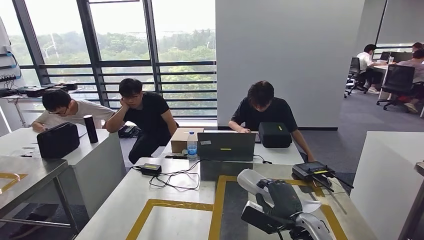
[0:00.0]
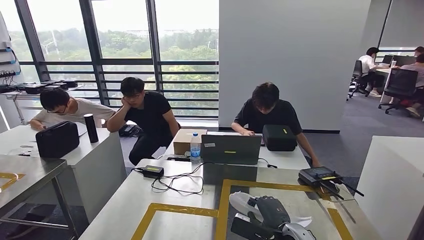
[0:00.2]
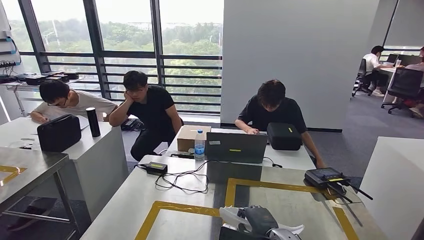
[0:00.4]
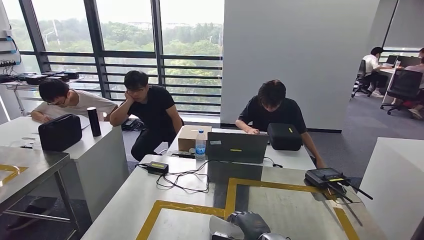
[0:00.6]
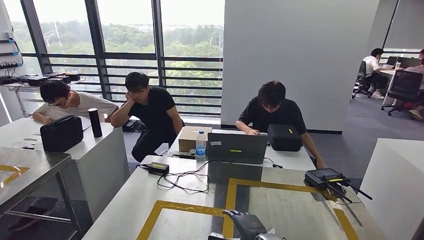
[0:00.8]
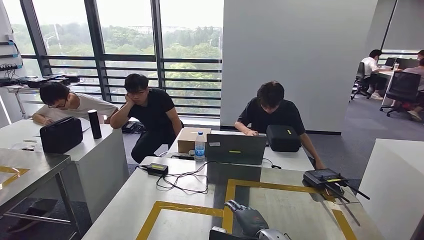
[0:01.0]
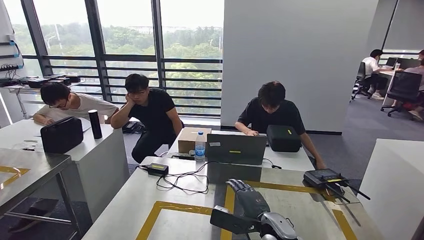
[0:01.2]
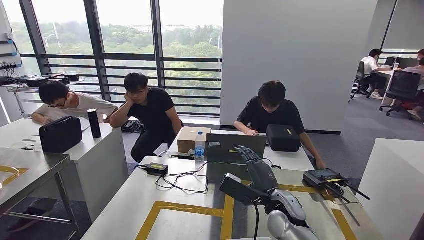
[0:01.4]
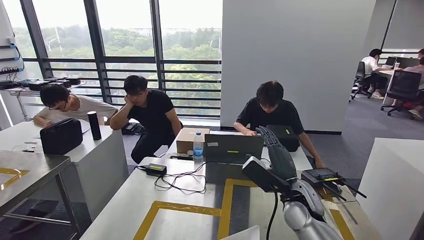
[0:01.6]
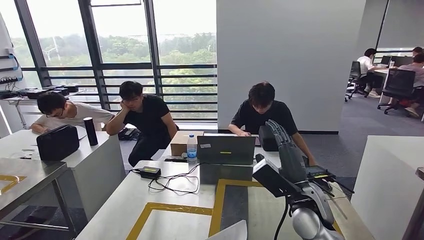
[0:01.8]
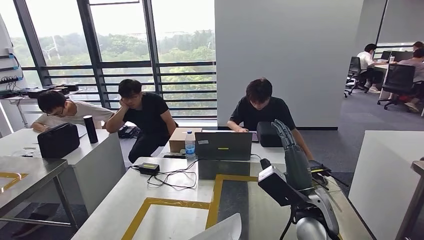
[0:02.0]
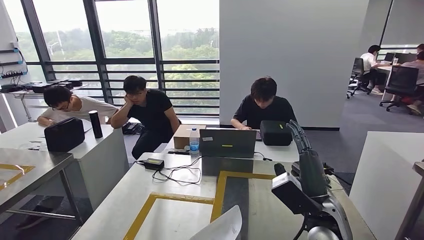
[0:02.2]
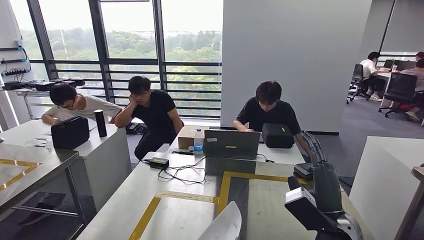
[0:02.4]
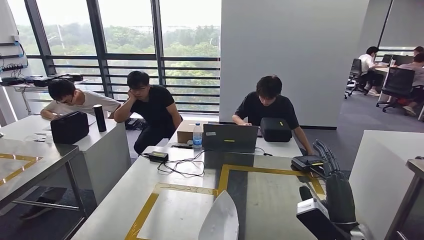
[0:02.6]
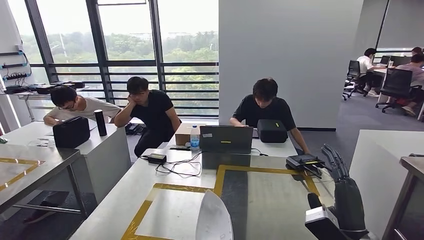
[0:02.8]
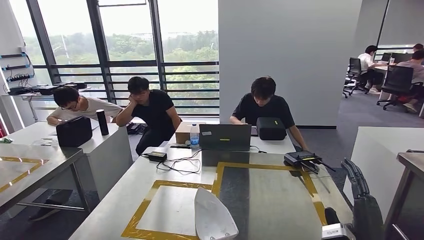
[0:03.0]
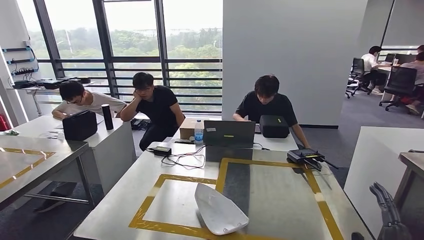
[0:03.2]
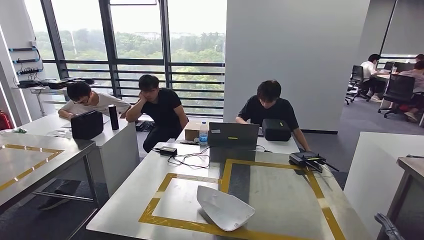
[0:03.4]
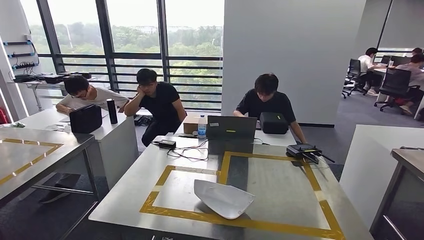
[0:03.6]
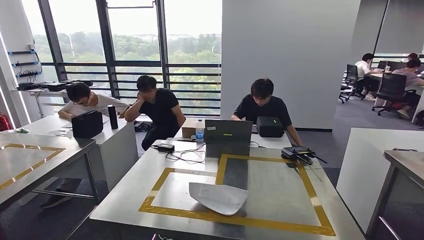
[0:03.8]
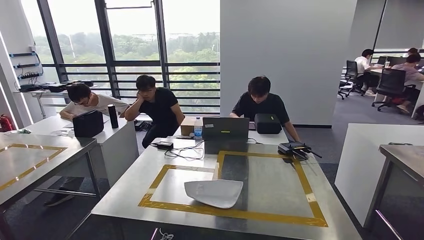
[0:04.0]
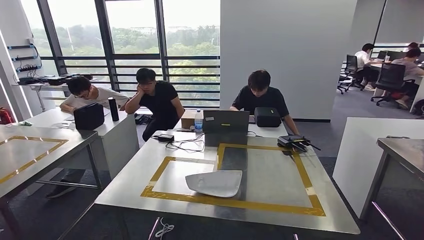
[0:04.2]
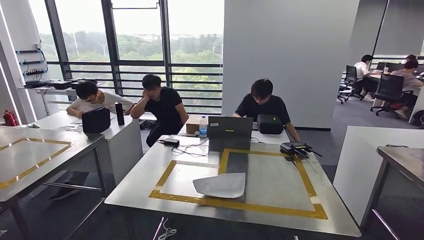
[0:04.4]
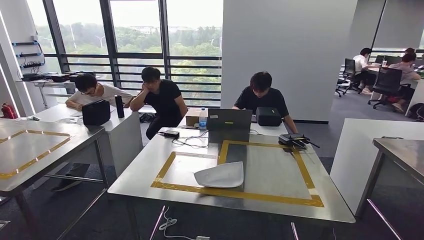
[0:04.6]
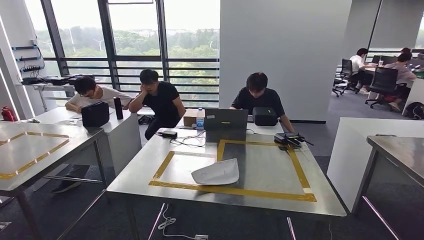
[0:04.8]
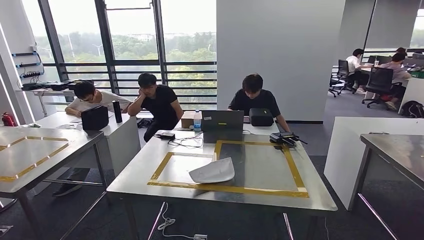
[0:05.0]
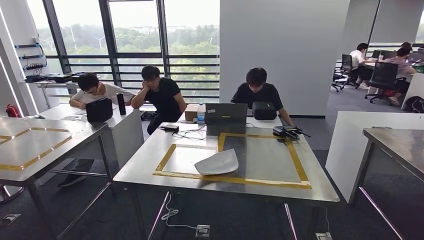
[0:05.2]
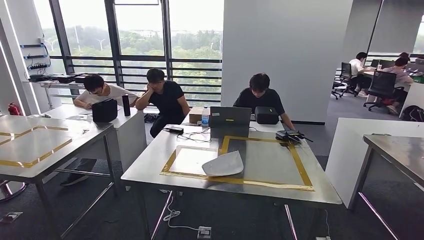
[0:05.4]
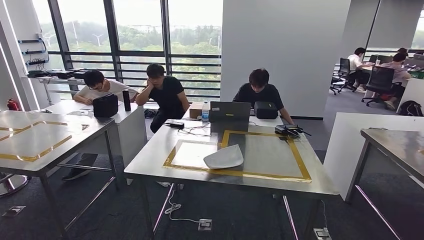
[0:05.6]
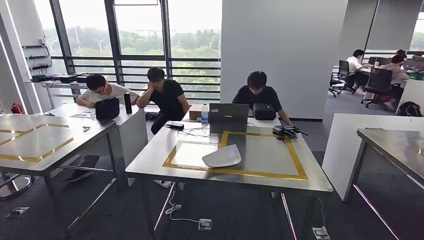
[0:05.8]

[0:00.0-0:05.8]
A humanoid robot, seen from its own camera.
Step, 0:02.0 to 0:05.6: Return to the initial position at the workbench.

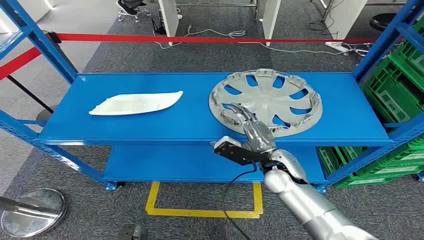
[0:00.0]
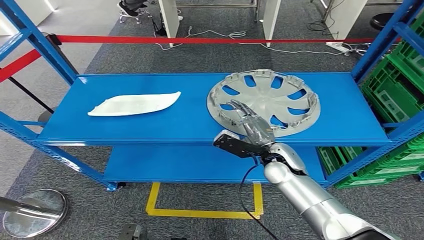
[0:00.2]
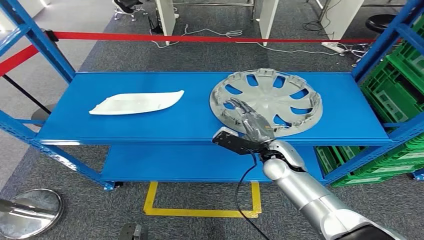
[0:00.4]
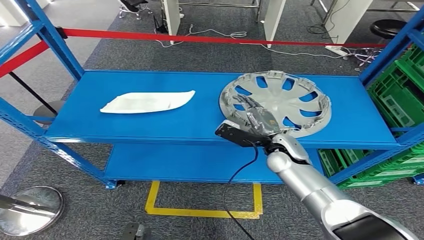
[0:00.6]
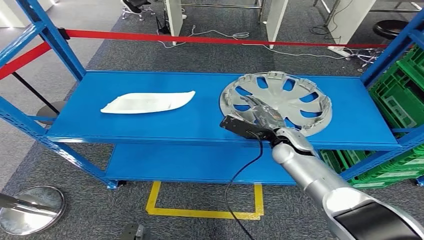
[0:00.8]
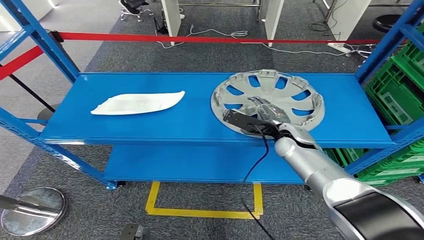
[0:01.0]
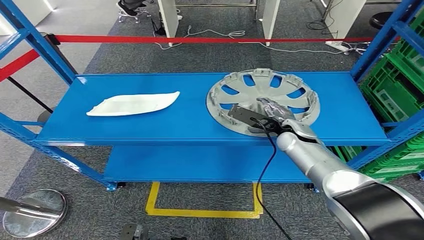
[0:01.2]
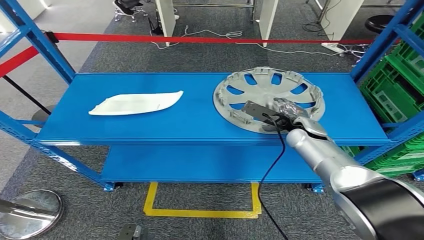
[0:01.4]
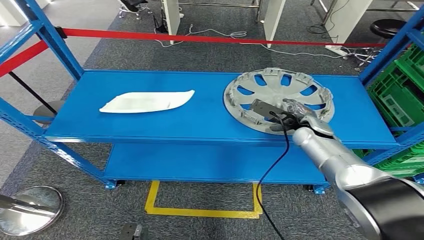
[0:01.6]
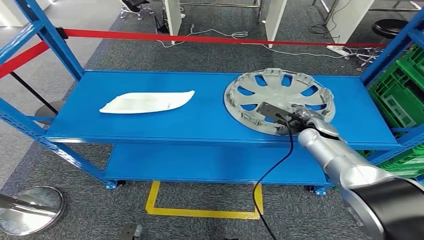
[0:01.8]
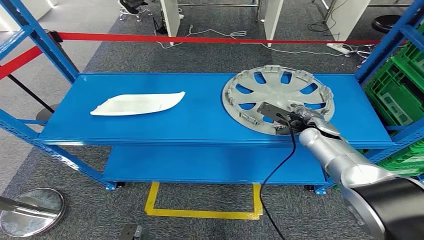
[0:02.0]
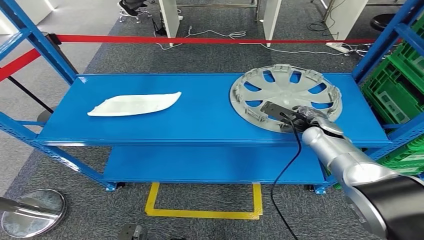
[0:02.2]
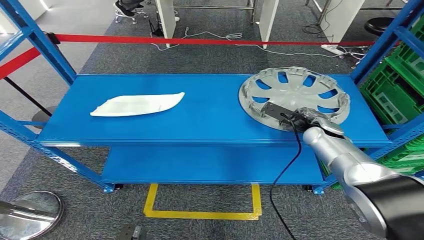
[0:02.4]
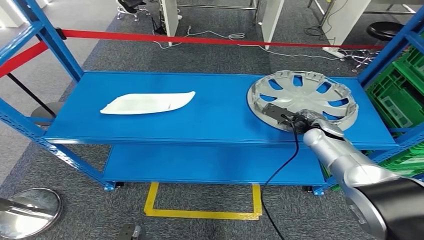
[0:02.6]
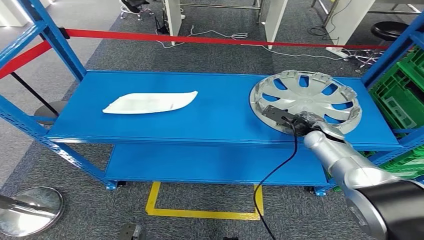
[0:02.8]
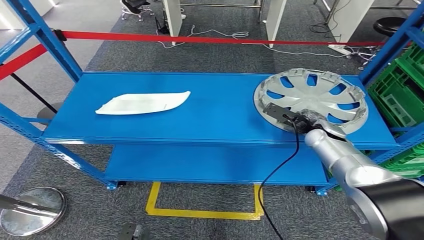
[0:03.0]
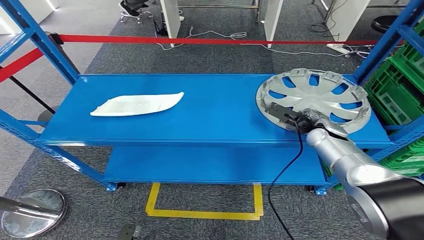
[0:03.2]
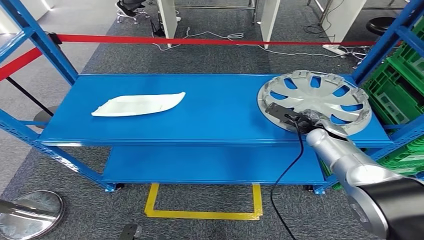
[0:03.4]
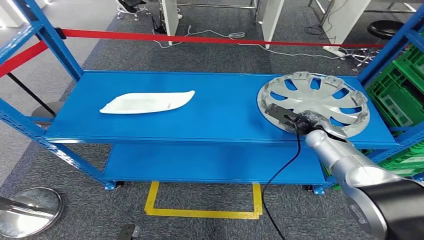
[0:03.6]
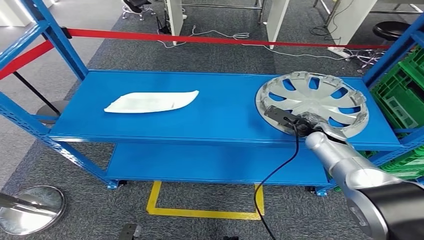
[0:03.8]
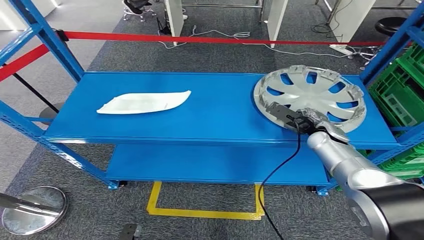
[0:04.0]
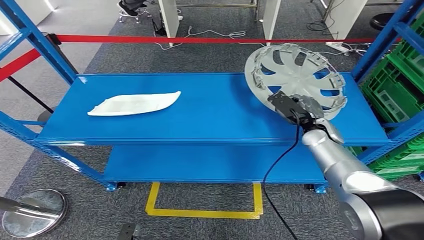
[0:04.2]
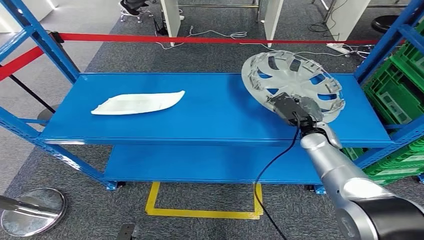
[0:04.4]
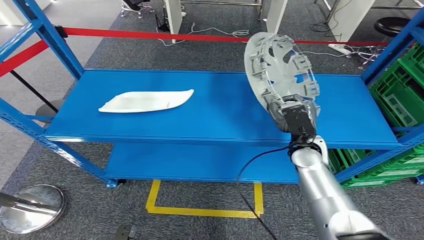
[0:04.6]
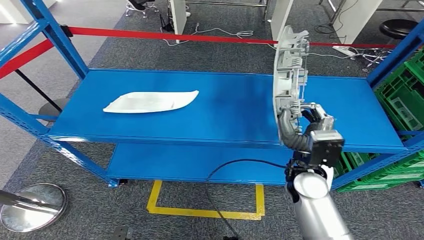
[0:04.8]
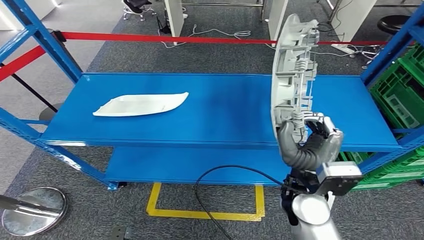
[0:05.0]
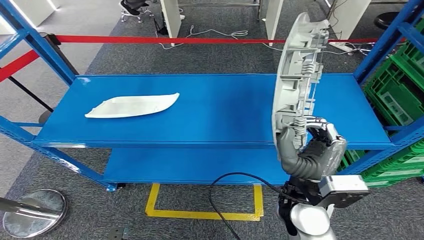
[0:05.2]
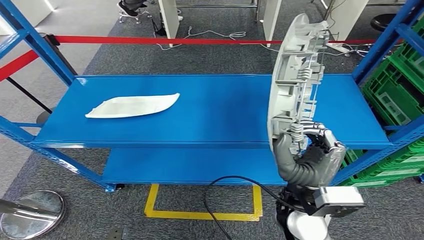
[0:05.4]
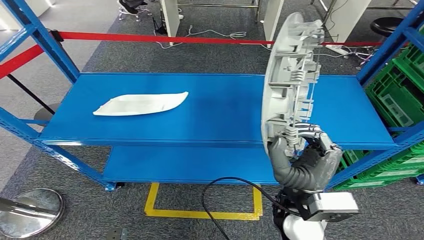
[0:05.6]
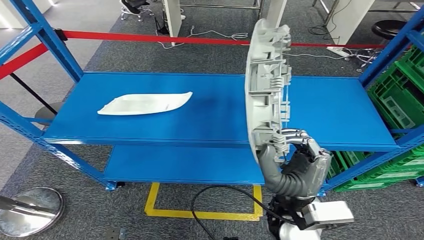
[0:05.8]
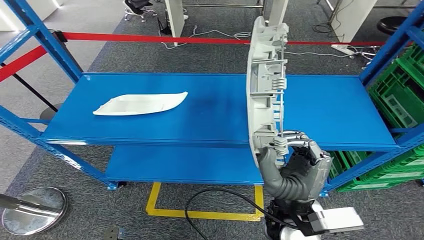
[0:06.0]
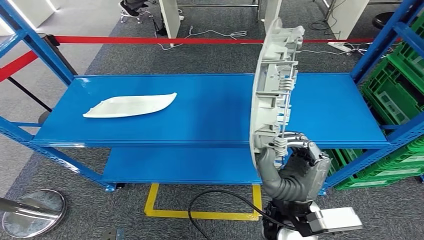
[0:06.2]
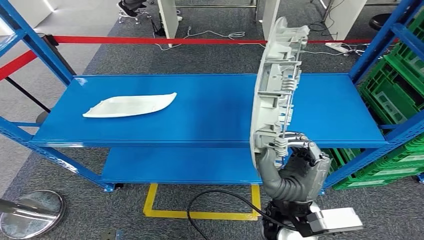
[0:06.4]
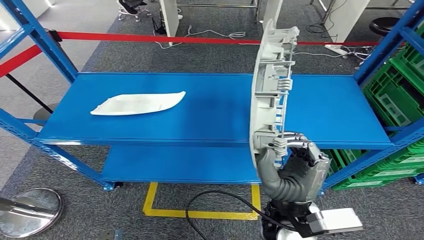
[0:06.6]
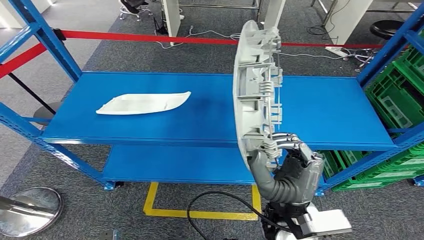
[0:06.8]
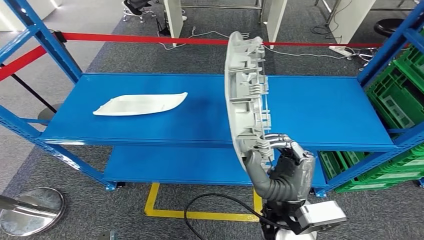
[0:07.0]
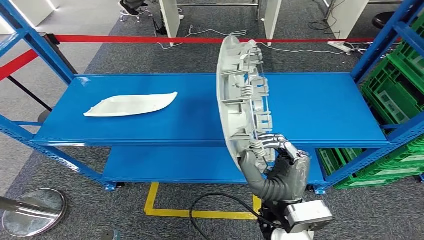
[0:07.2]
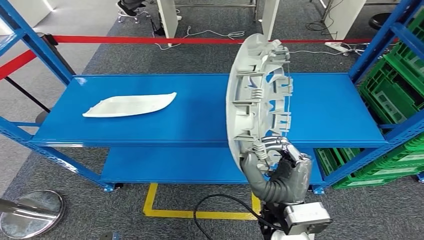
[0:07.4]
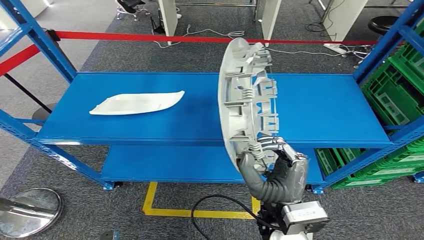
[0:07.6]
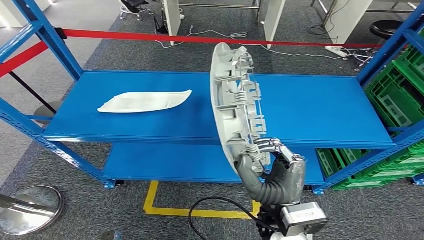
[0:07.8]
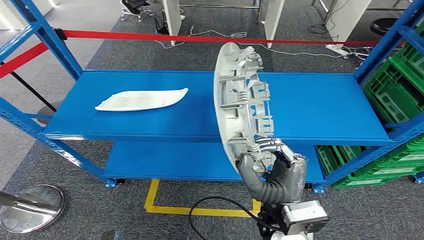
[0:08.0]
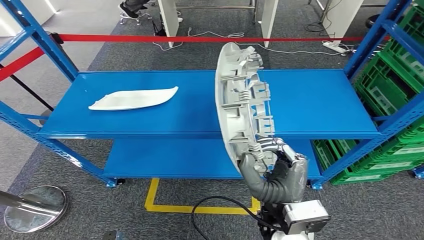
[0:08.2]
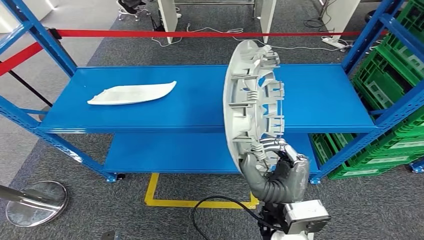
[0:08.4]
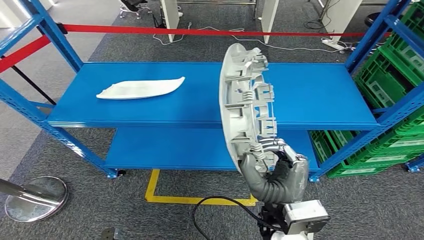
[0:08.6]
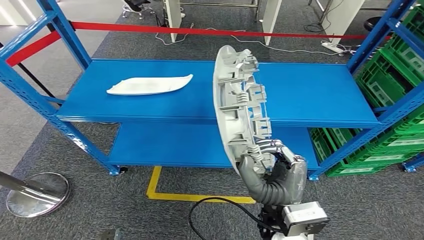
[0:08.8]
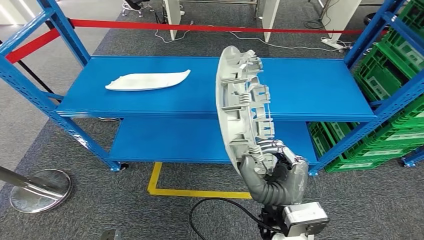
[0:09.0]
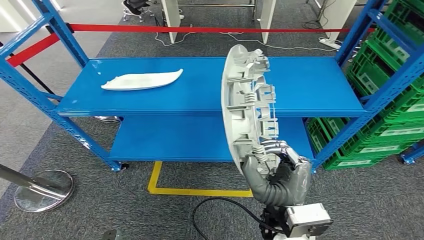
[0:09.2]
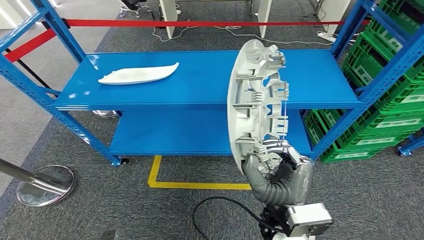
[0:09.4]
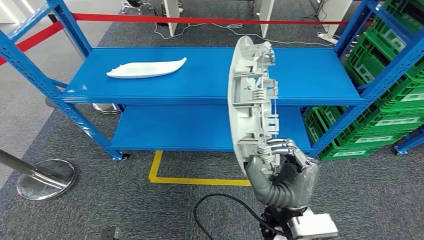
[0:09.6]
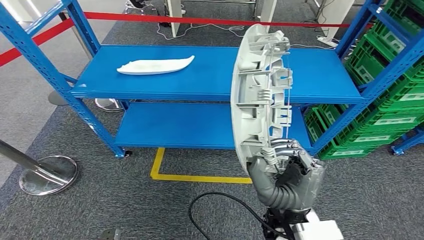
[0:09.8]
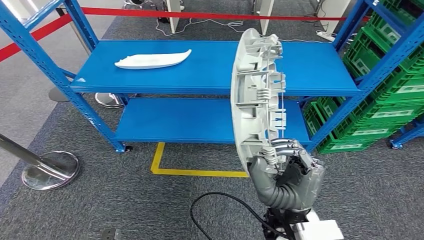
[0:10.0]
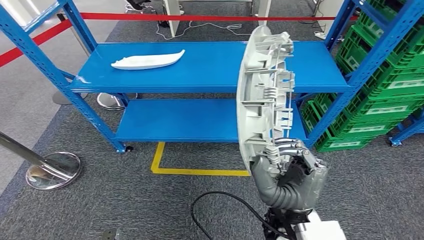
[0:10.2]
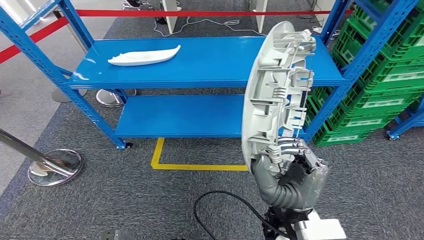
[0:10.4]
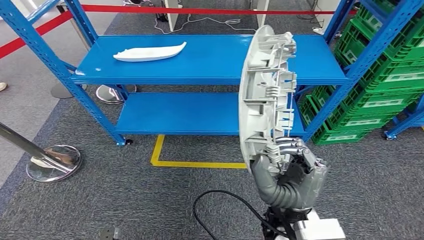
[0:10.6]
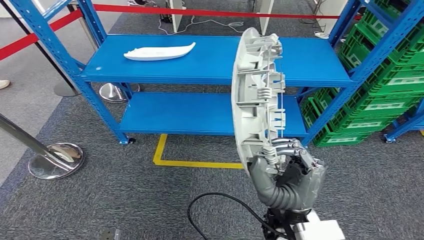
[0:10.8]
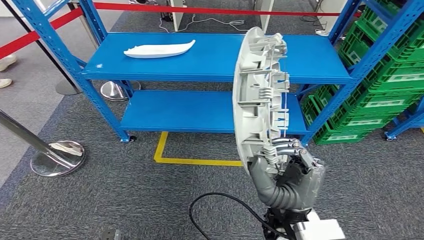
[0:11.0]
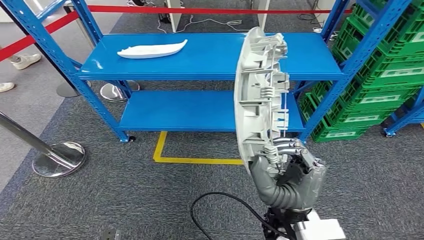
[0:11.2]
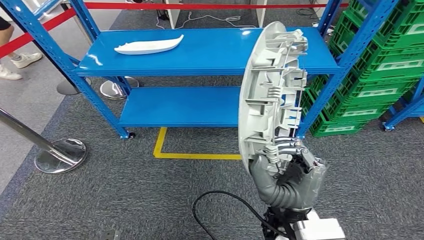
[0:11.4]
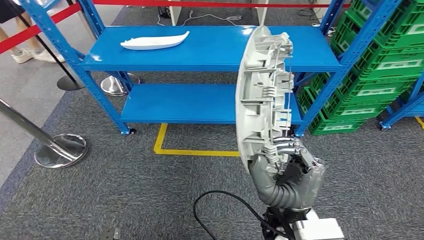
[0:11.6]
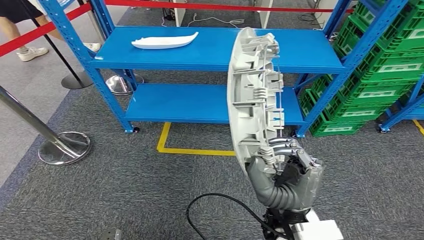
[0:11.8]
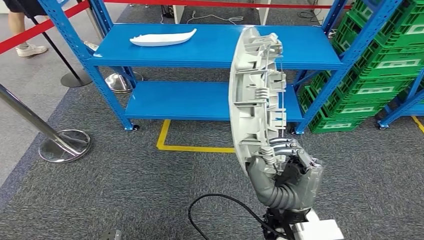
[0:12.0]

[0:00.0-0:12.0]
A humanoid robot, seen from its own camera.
Step, 0:00.0 to 0:05.6: Pick up the small component from the shelf.
